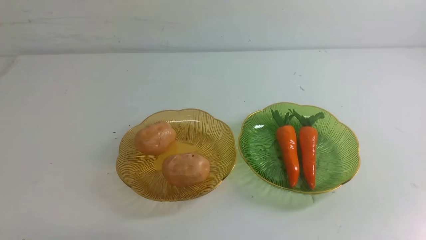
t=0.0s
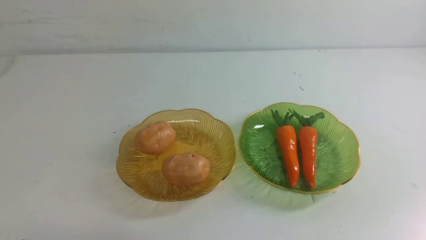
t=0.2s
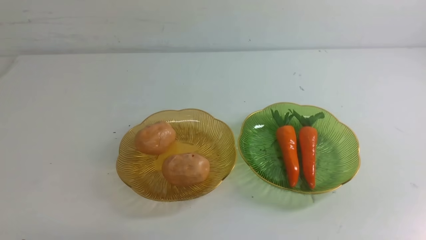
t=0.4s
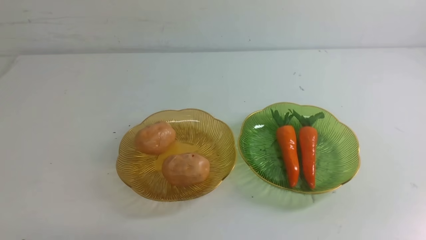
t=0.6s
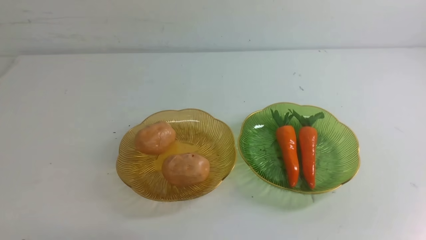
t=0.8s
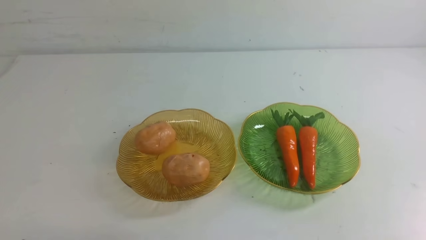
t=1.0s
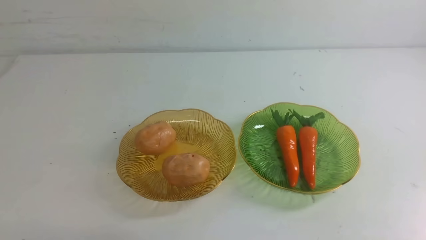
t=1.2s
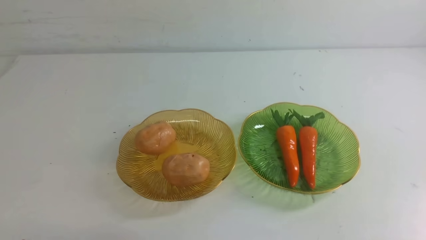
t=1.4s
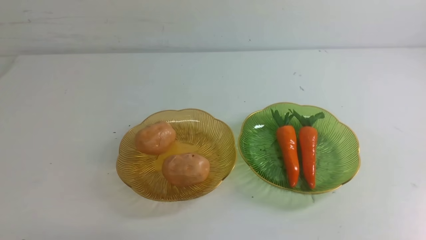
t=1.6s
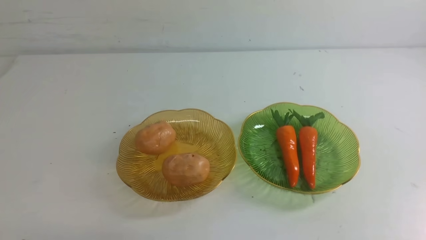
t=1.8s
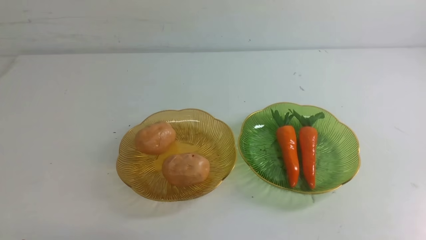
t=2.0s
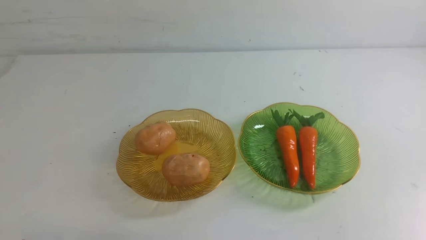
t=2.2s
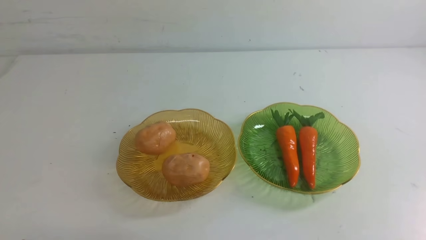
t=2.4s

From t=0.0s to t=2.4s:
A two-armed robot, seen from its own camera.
From t=1.2s to t=2.4s: The two grippers keep their place.
